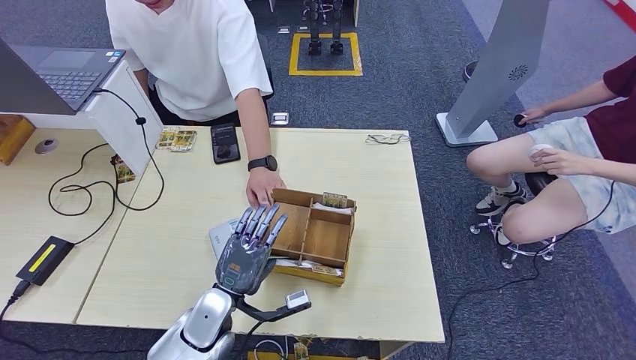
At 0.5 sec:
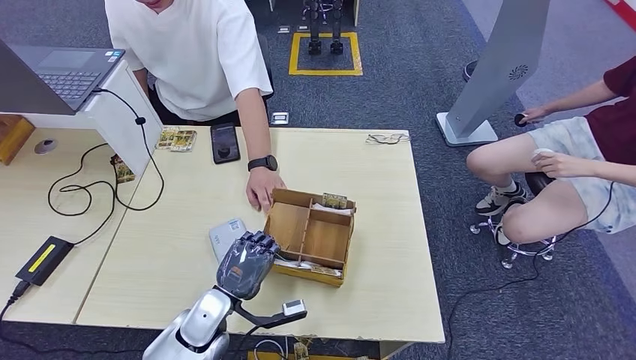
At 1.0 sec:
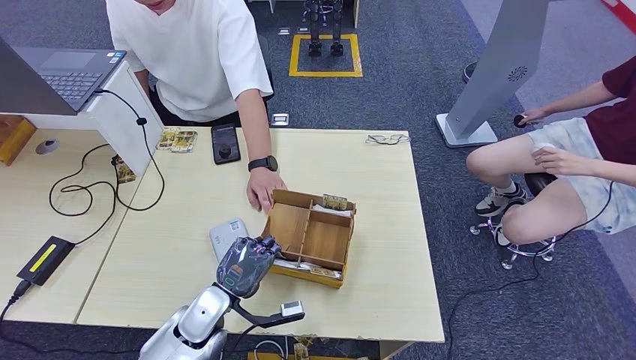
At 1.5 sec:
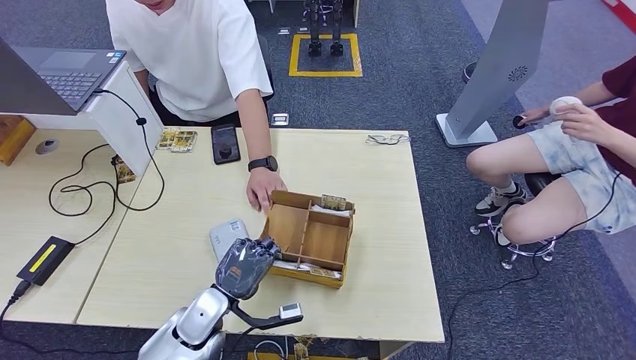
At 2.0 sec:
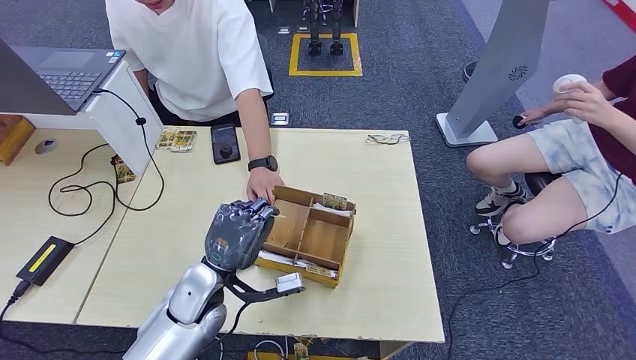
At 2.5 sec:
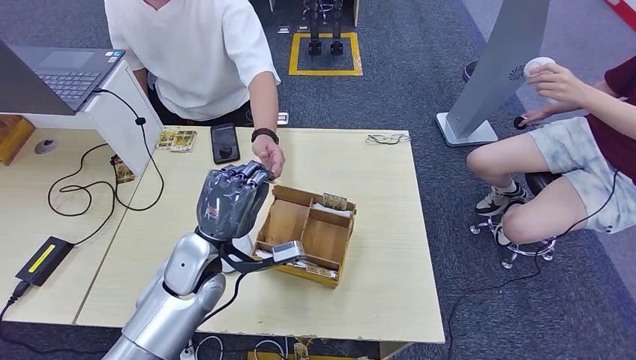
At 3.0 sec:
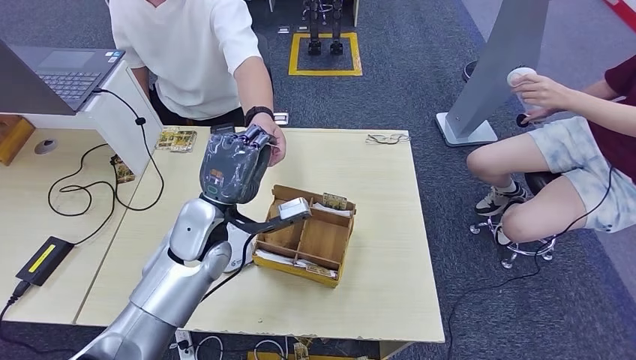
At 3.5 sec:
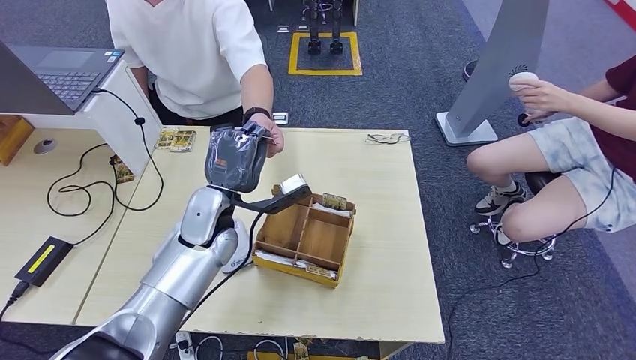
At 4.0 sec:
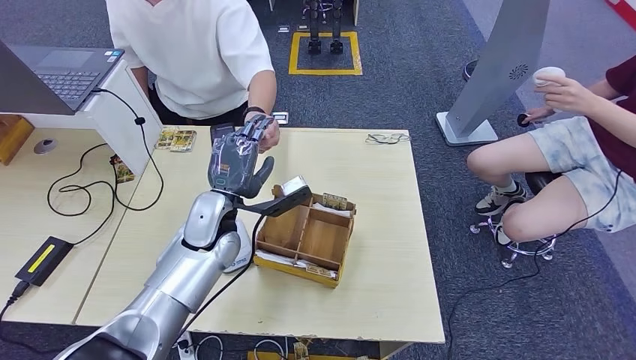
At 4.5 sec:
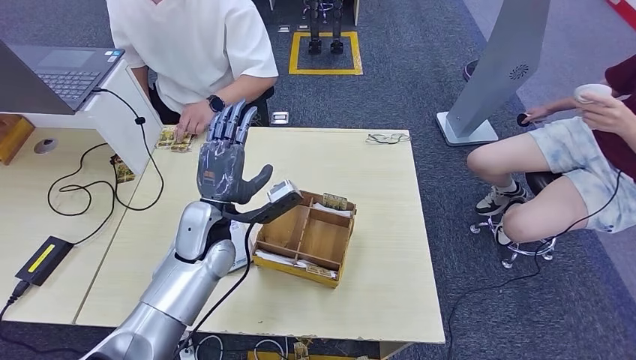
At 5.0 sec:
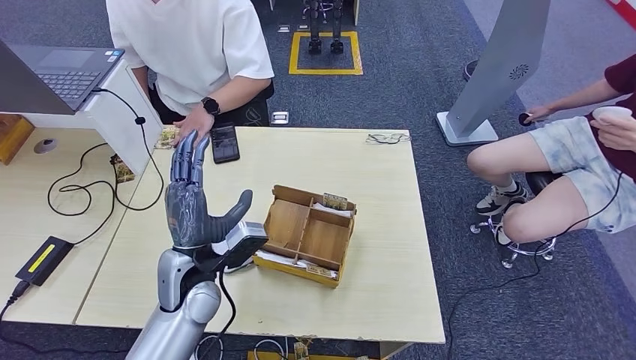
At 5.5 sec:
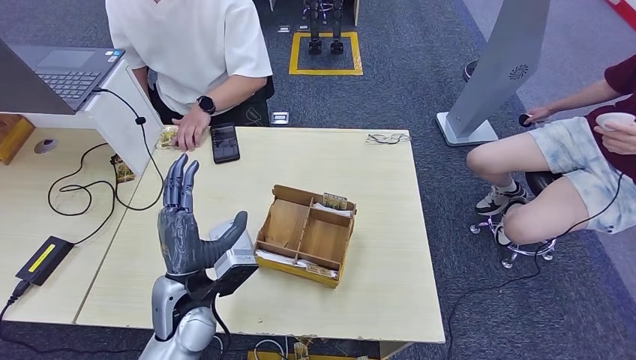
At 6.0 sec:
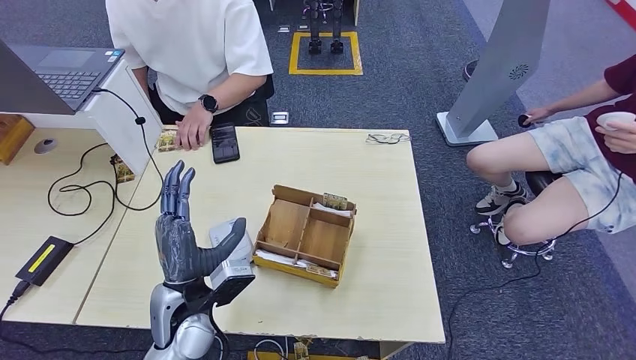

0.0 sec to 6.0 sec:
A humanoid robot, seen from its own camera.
Step, 2.5 sec to 6.0 sec: Hand the room key to the person.
0.0 sec to 2.0 sec: The left hand travels upward by approximately 5 cm.
2.0 sec to 4.0 sec: The left hand moves forward and upward, approximately 10 cm.
4.0 sec to 6.0 sec: The left hand heads backward, covering some 15 cm.

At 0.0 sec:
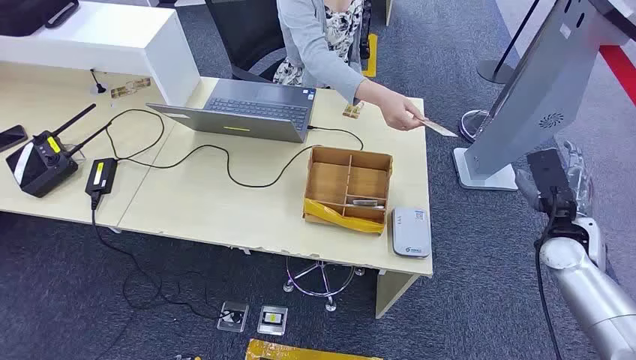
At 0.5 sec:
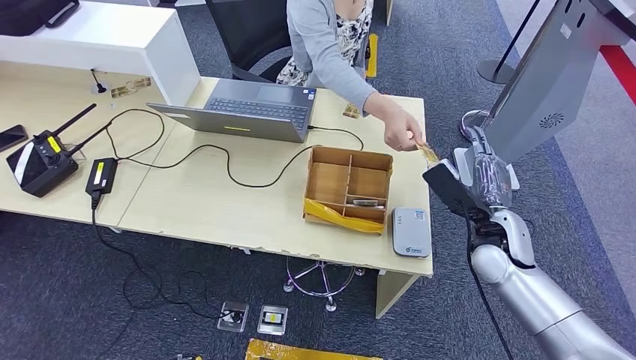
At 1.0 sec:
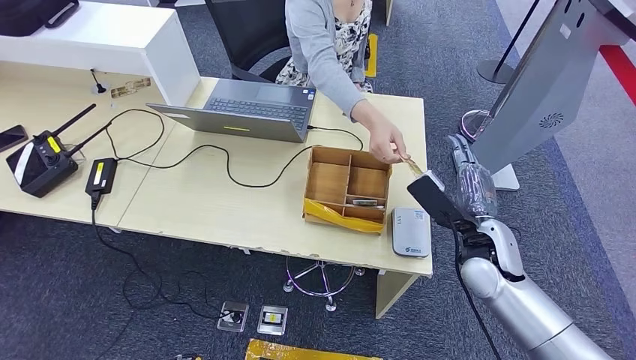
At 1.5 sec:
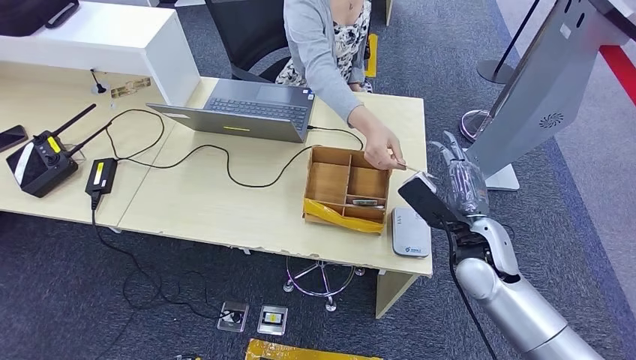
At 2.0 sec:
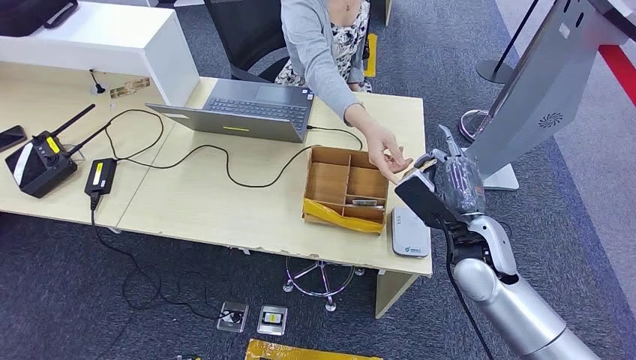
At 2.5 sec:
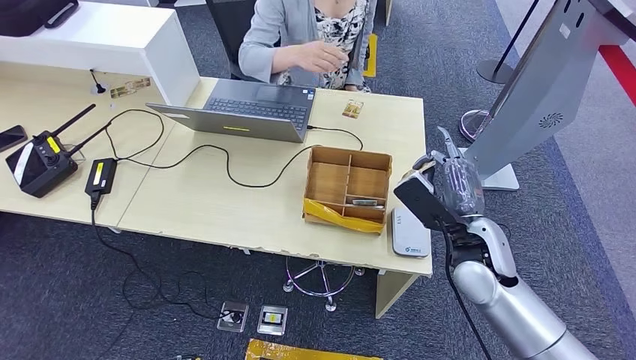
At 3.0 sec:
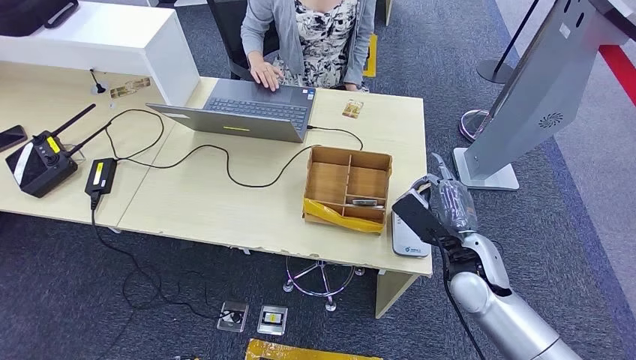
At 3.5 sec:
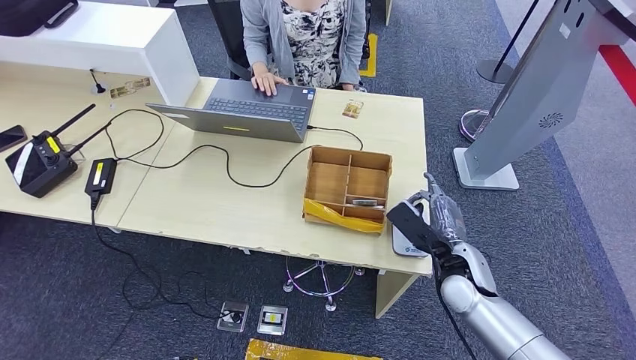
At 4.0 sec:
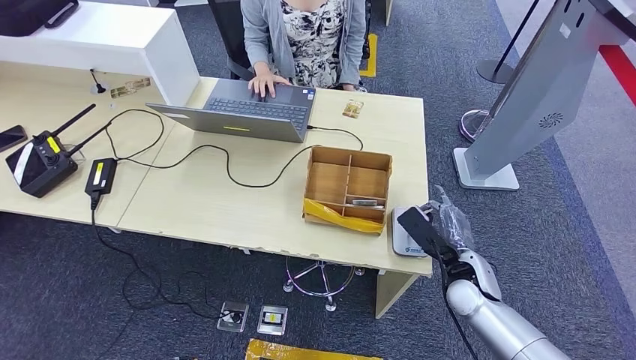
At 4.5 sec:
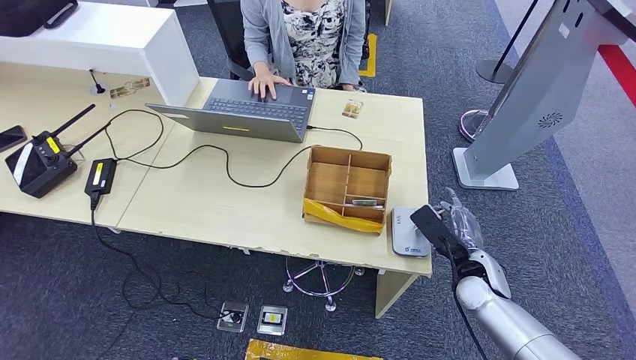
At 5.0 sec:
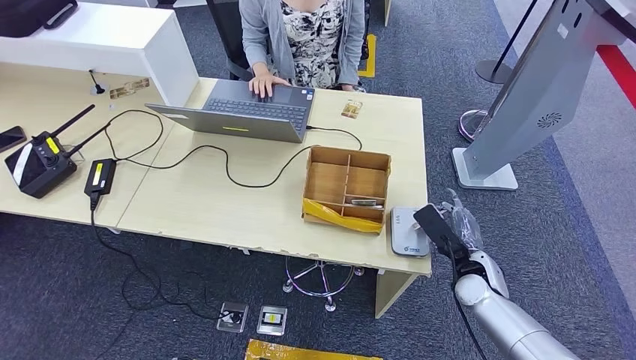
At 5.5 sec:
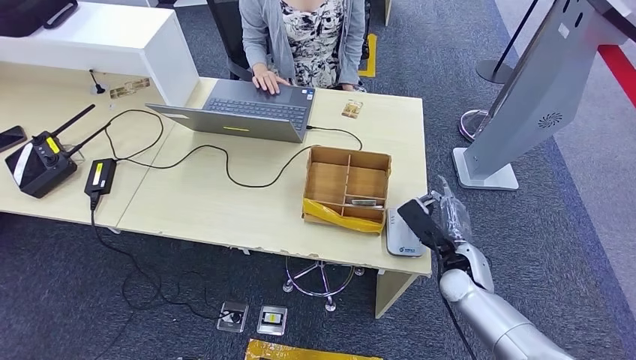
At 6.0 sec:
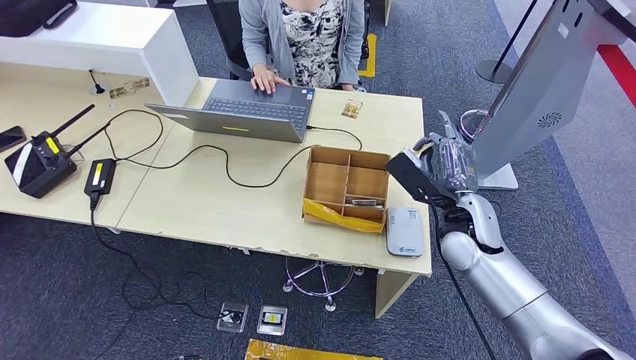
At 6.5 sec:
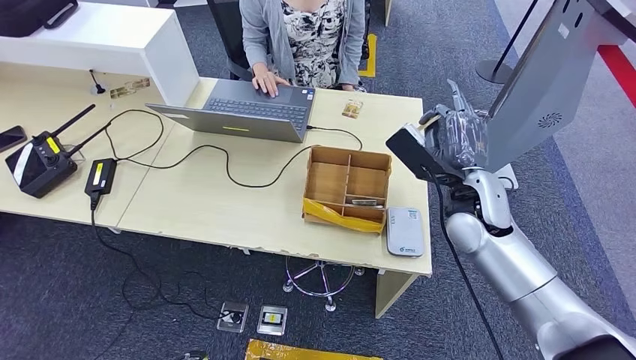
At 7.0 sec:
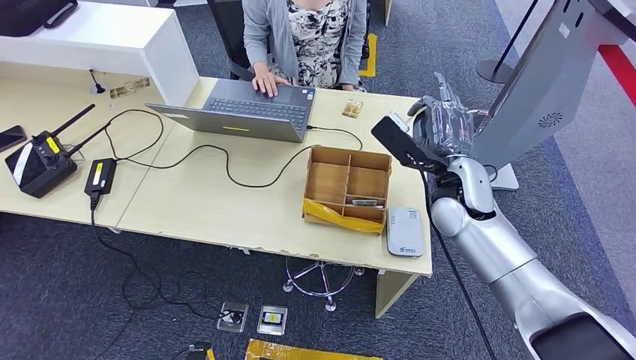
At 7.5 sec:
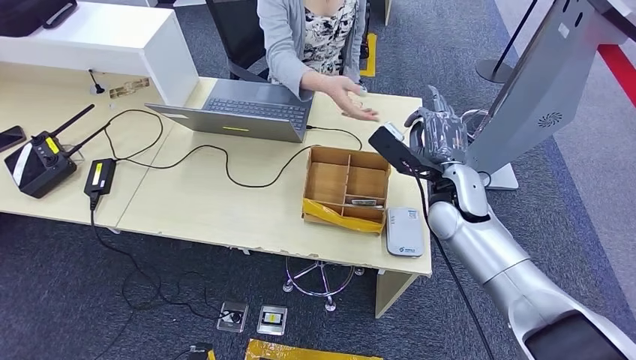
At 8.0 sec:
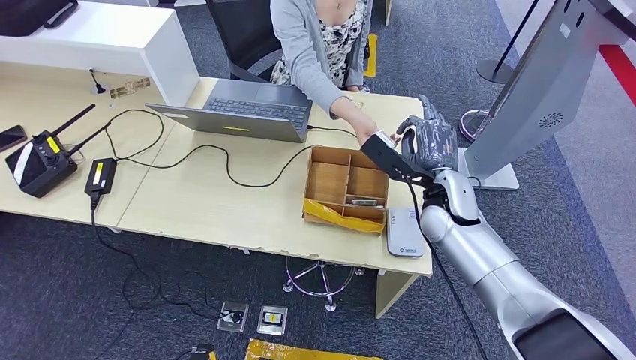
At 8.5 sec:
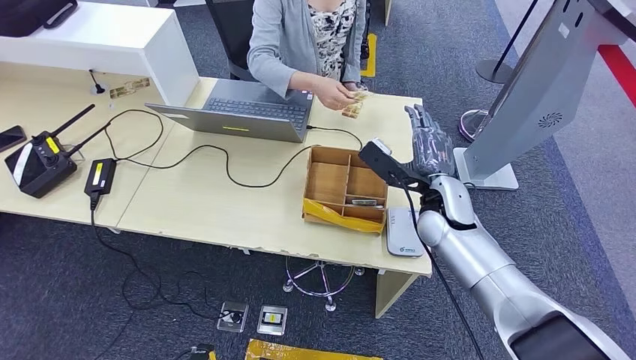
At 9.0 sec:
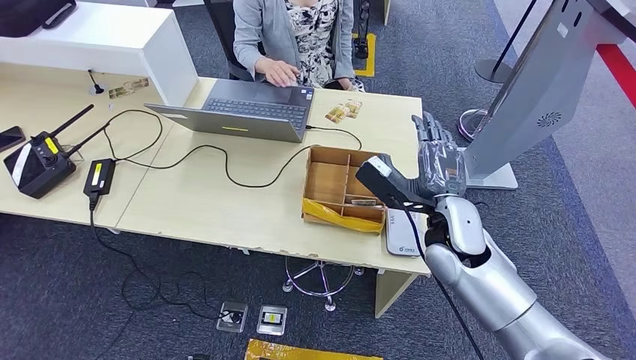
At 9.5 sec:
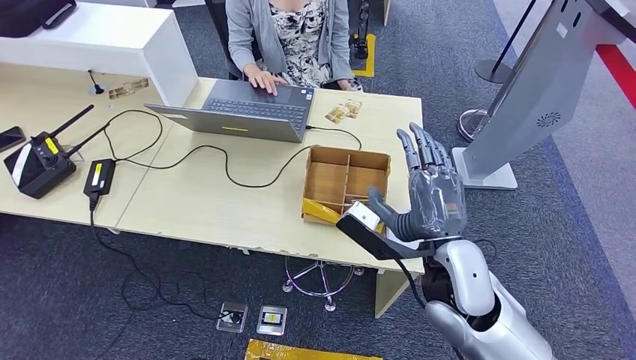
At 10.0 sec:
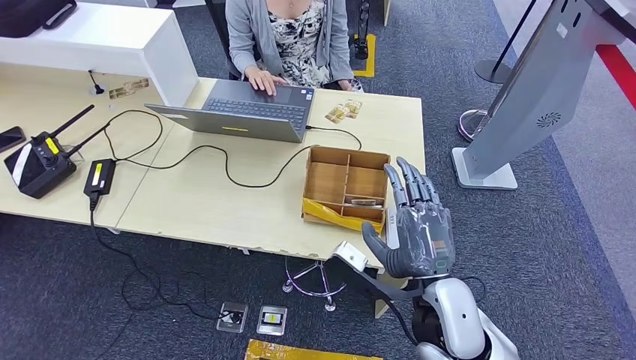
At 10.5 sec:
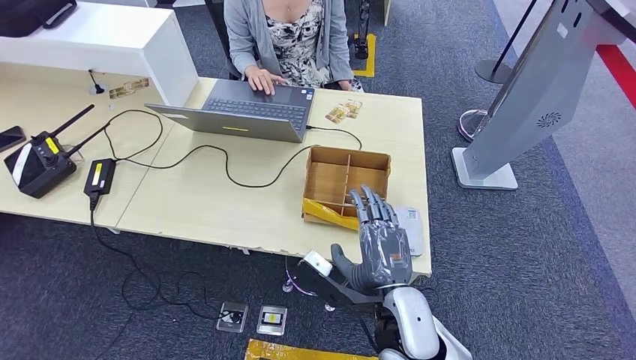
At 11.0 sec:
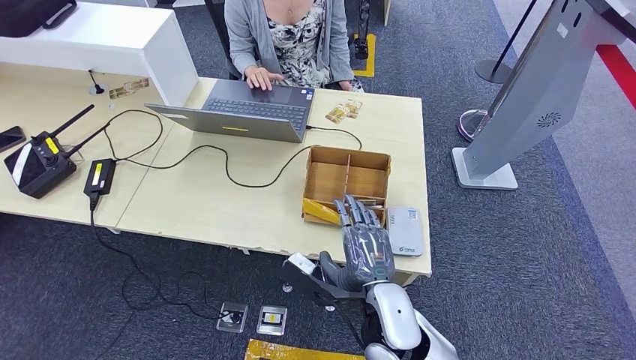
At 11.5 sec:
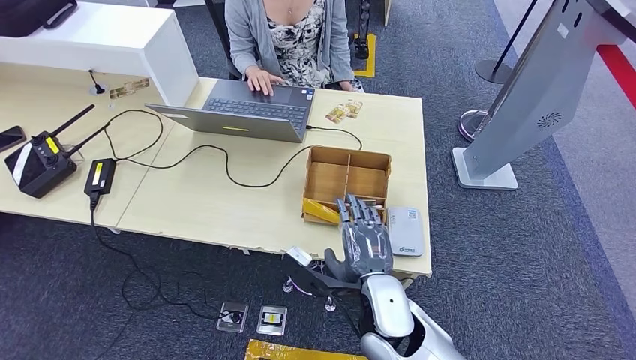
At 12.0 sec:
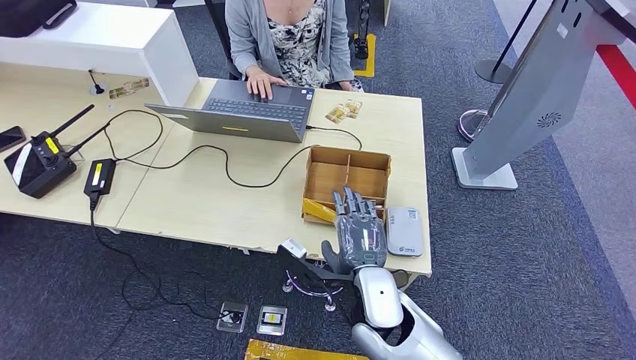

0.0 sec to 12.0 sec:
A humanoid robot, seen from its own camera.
Step, 0.0 sec to 3.0 sec: Take the ID card from the person's hand.
Step, 3.5 sec to 5.5 sec: Place the ID card on the card reader.
Step, 6.0 sec to 10.0 sec: Hand the ID card to the person.
2.0 sec to 4.0 sec: The right hand moves downward, roughly 10 cm.
4.0 sec to 6.0 sec: The right hand moves upward and forward, about 10 cm.
6.0 sec to 8.0 sec: The right hand ends up roughly 5 cm from where it was.
10.0 sec to 12.0 sec: The right hand heads to the left and downward, covering about 10 cm.

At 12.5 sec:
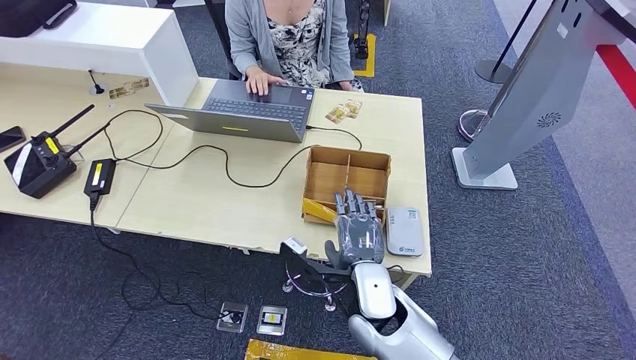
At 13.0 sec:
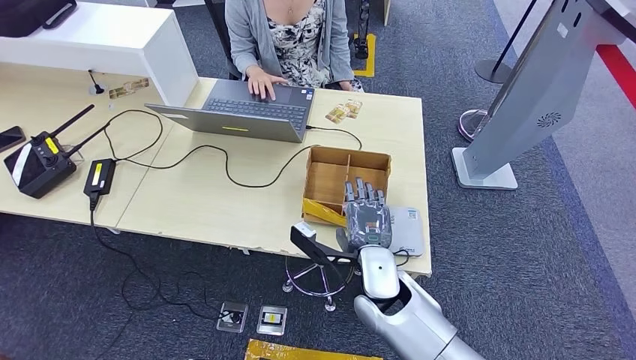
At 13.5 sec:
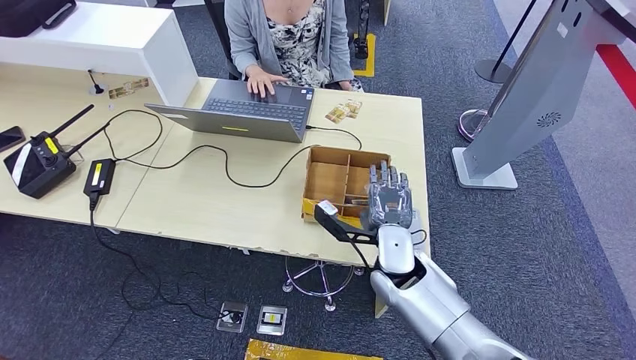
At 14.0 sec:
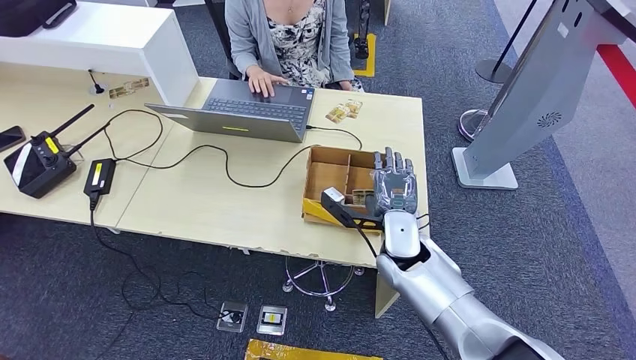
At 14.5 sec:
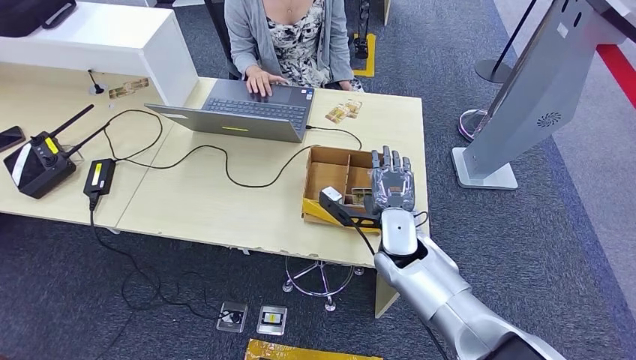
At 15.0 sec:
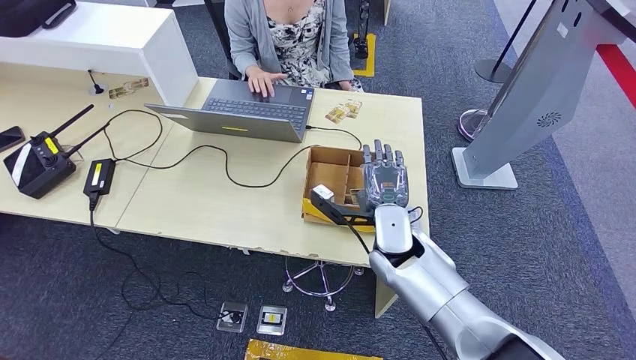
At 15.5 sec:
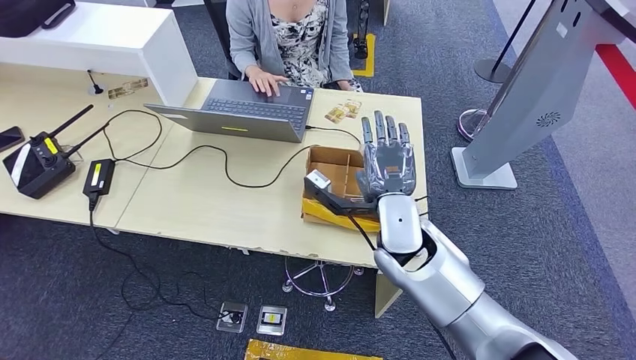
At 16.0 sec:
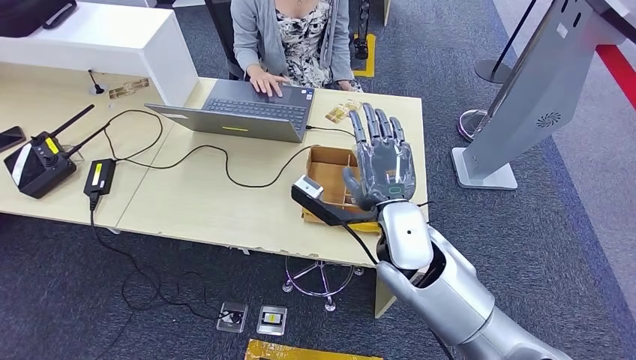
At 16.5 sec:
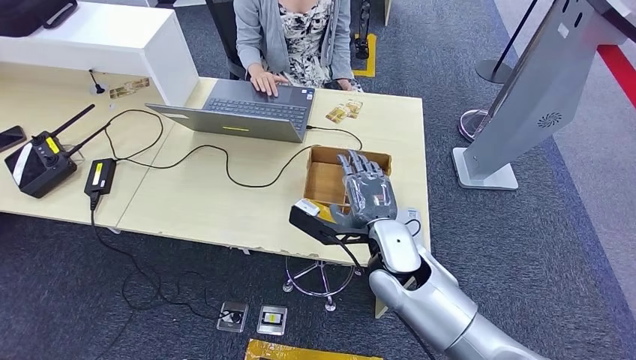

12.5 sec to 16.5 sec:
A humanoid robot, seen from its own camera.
12.5 sec to 14.5 sec: The right hand is displaced forward and to the right by approximately 10 cm.
